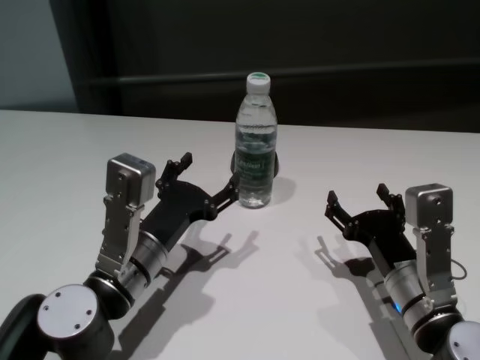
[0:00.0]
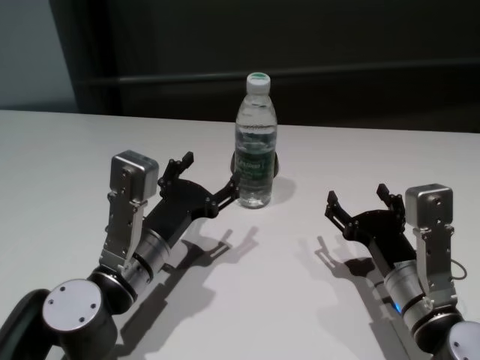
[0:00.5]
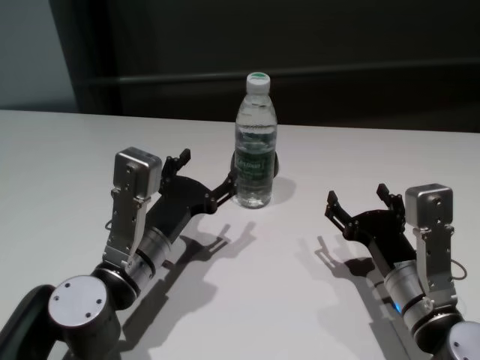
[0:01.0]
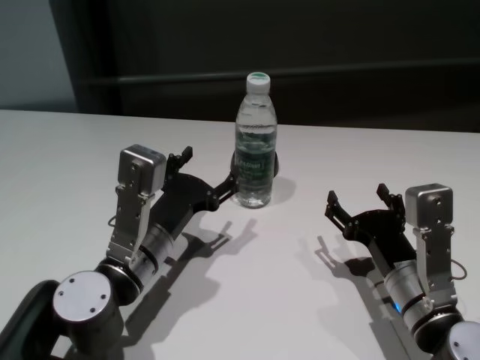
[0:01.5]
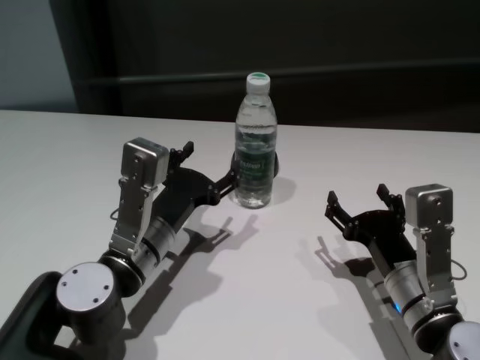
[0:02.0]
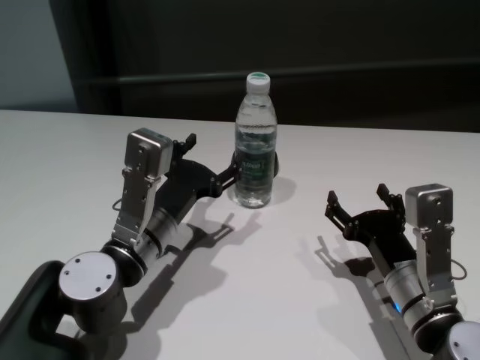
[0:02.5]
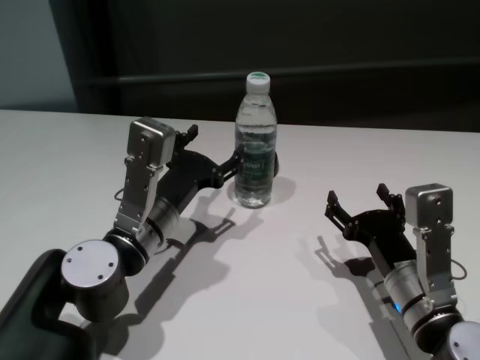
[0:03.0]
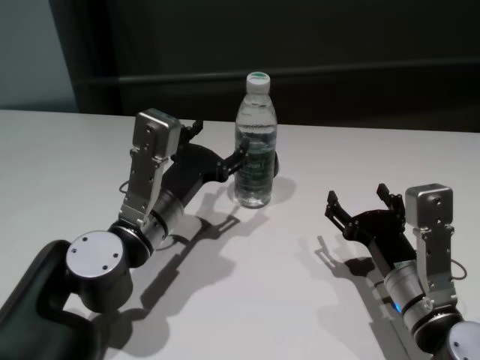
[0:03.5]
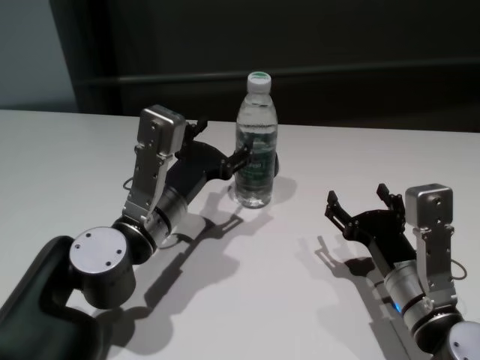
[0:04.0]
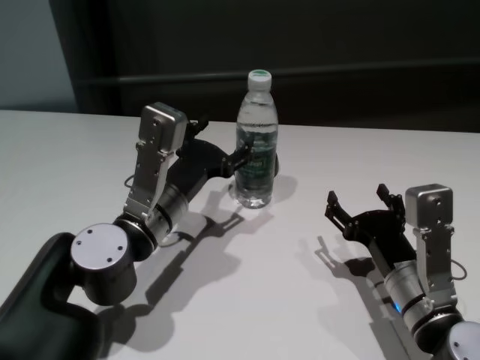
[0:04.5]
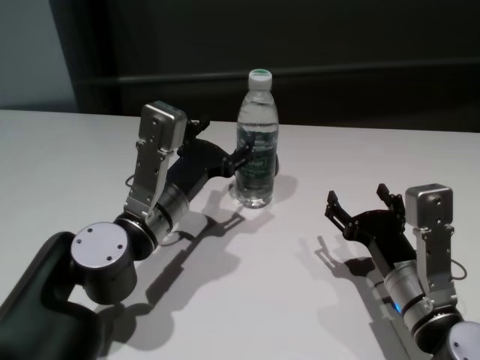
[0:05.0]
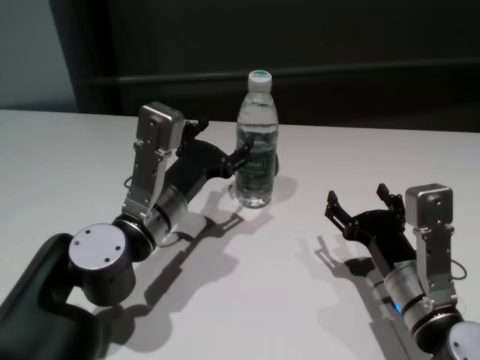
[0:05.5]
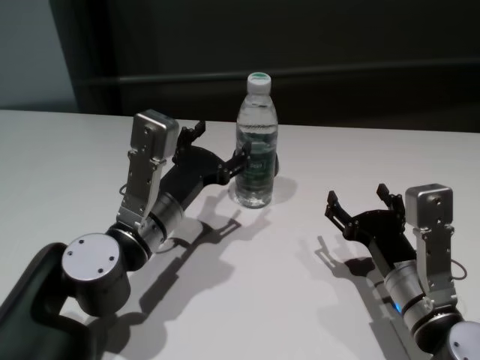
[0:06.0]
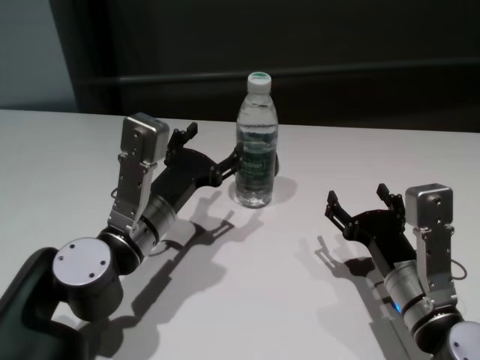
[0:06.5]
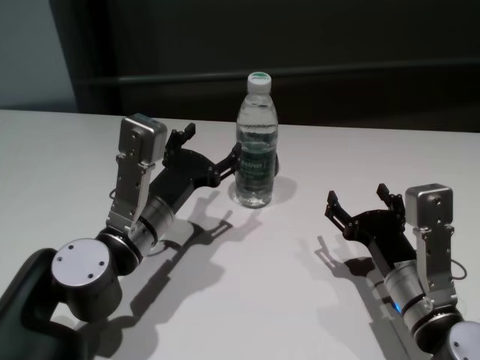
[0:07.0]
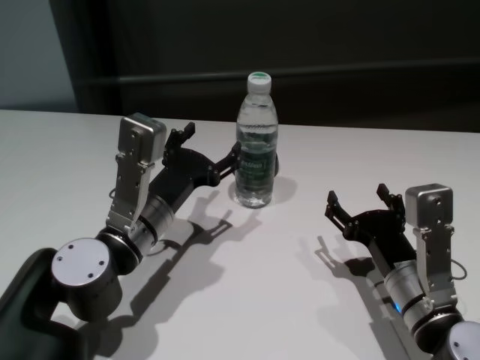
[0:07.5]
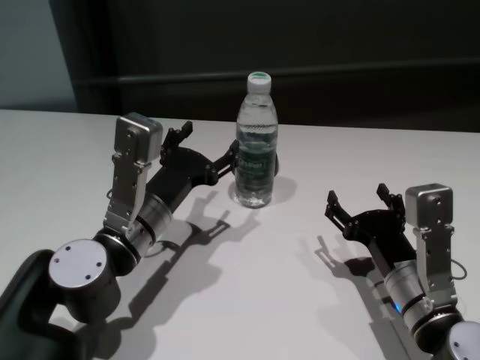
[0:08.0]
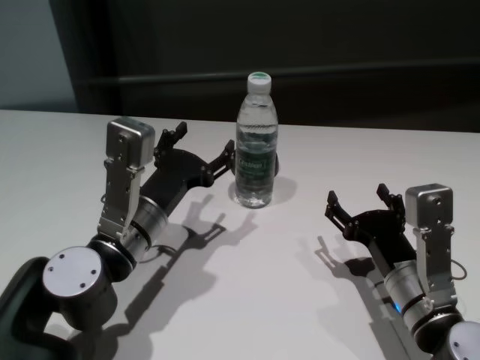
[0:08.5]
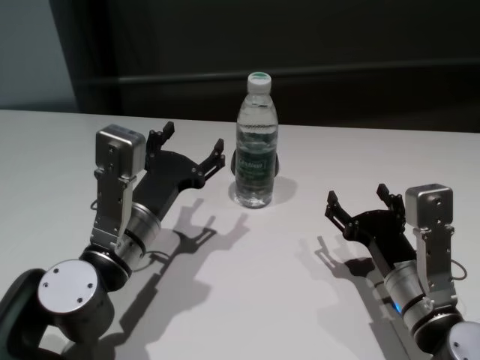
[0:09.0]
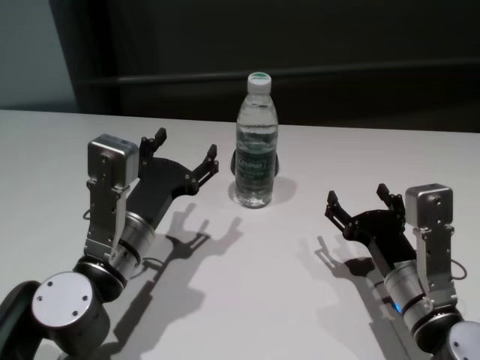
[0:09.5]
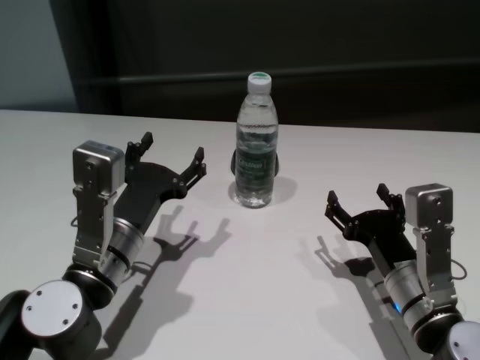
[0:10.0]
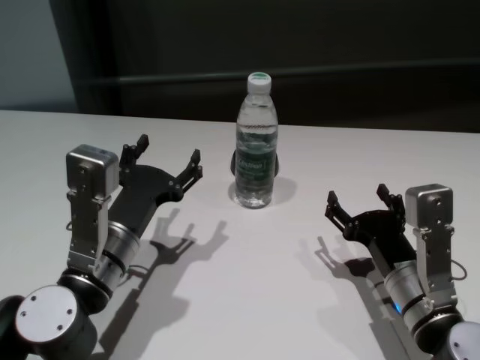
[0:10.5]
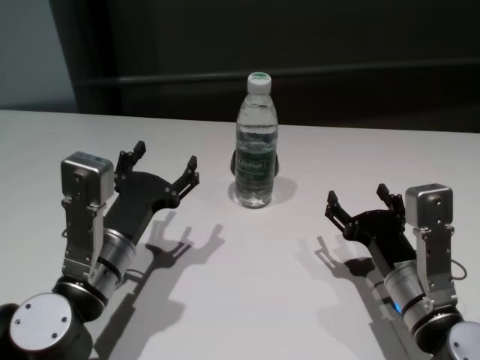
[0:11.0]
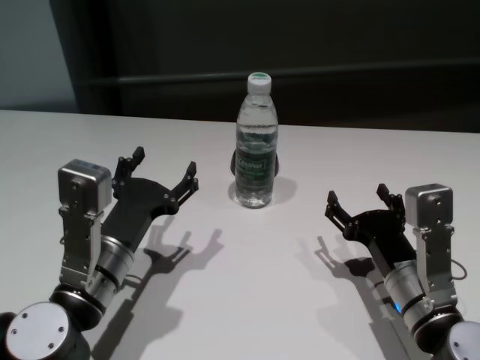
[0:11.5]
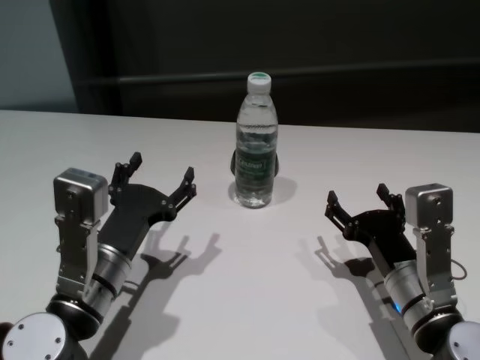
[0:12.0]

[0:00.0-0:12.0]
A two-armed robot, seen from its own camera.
Task of the whole recording: return to a safe position after touching an obstacle with your arm on the white table.
Step, 0:00.0 to 0:08.5: Touch the bottle with left gripper.

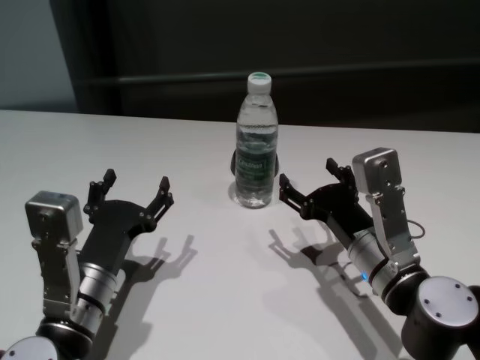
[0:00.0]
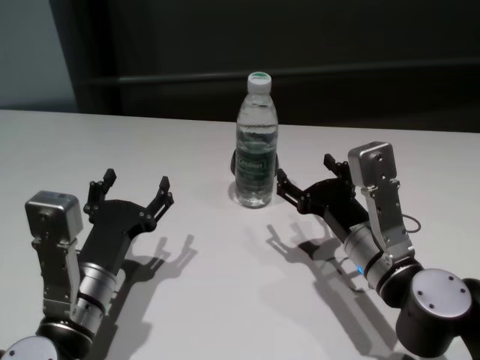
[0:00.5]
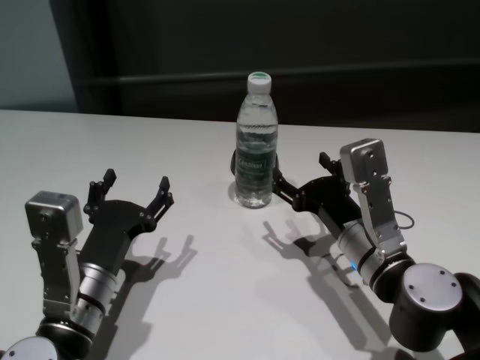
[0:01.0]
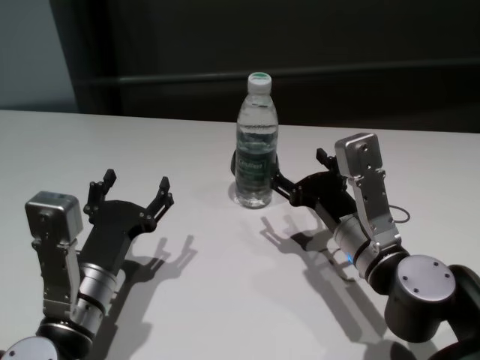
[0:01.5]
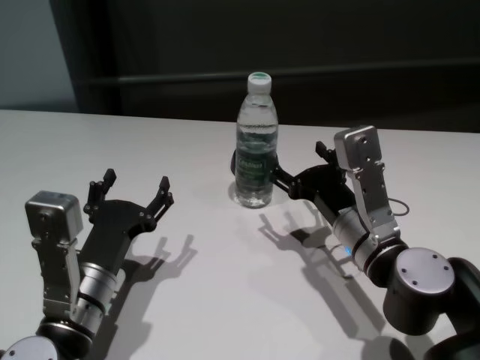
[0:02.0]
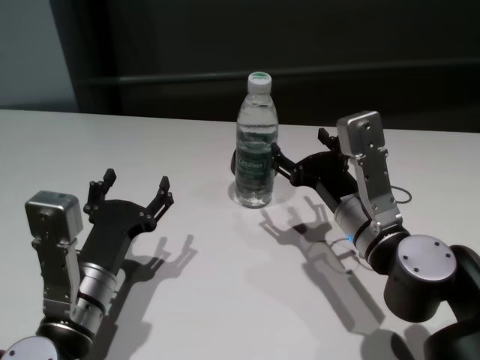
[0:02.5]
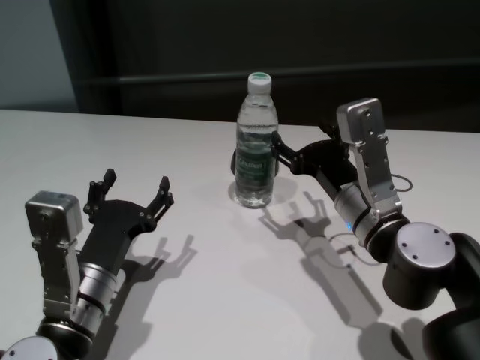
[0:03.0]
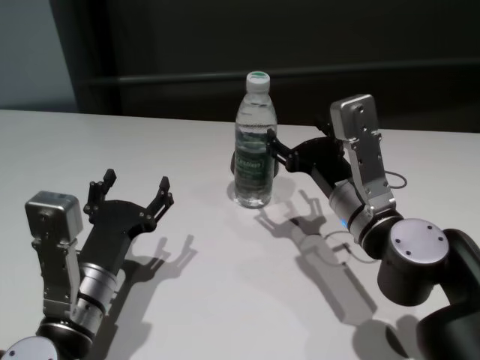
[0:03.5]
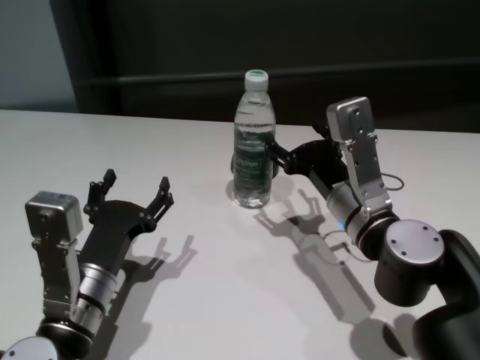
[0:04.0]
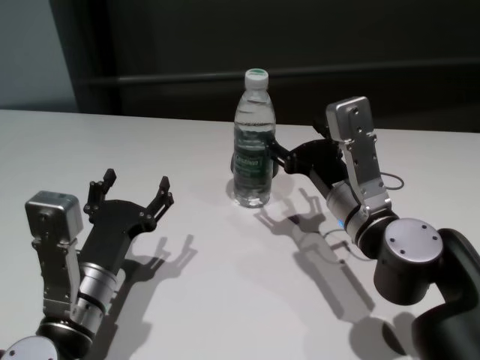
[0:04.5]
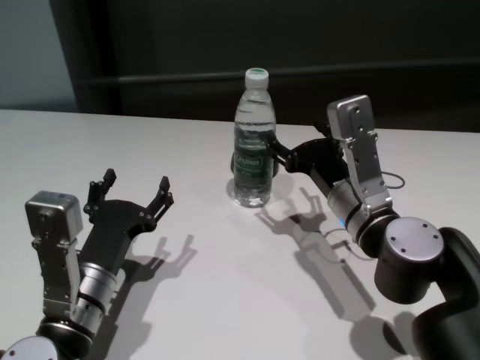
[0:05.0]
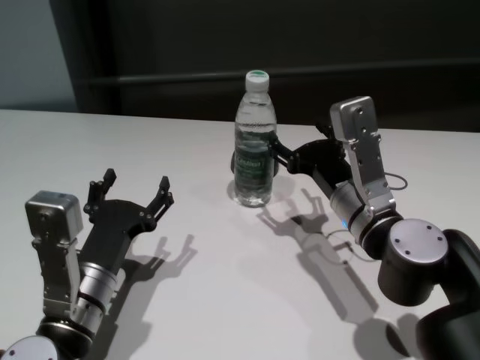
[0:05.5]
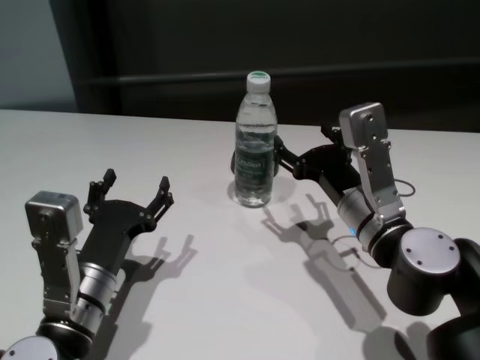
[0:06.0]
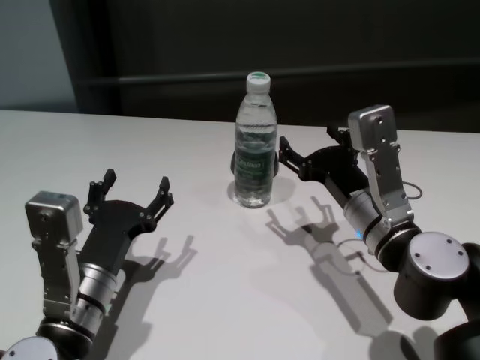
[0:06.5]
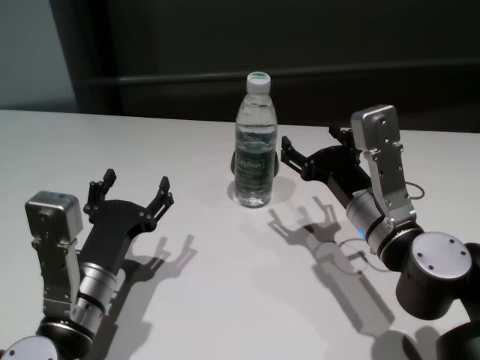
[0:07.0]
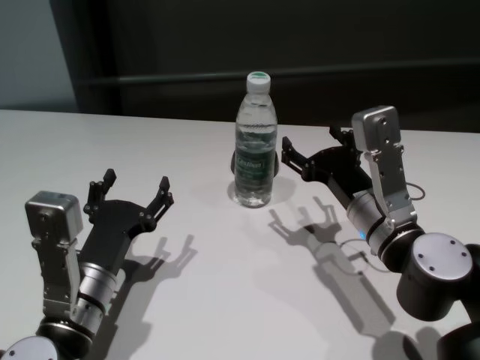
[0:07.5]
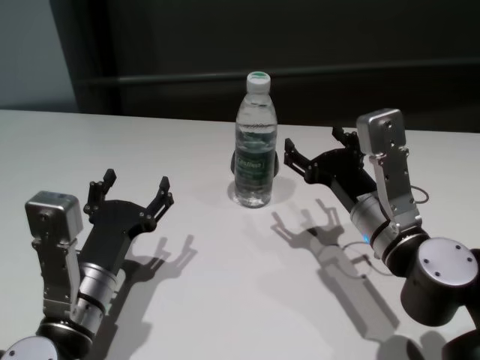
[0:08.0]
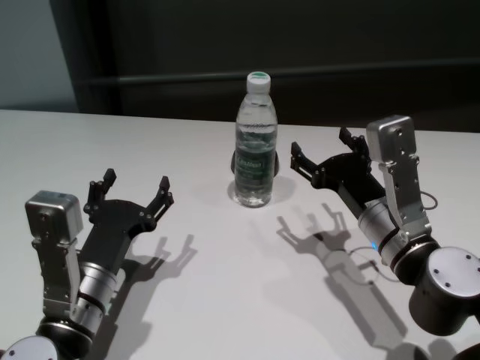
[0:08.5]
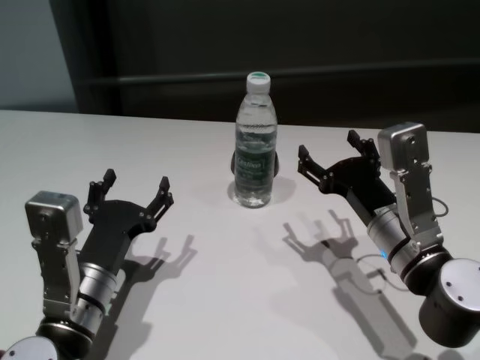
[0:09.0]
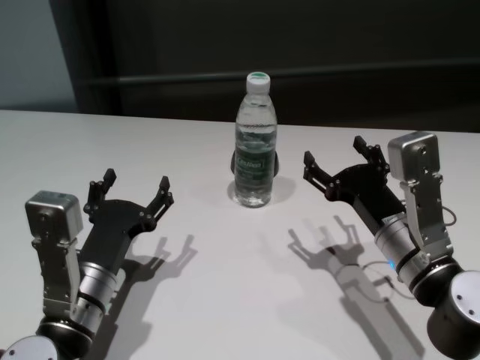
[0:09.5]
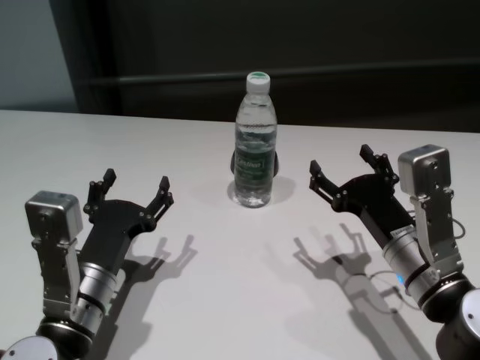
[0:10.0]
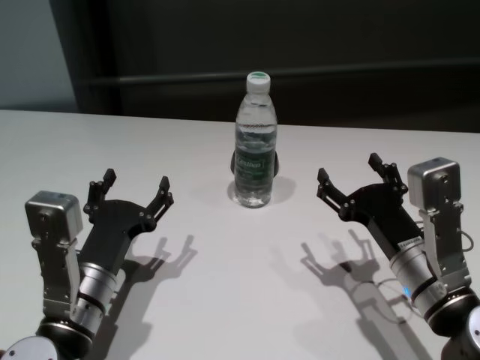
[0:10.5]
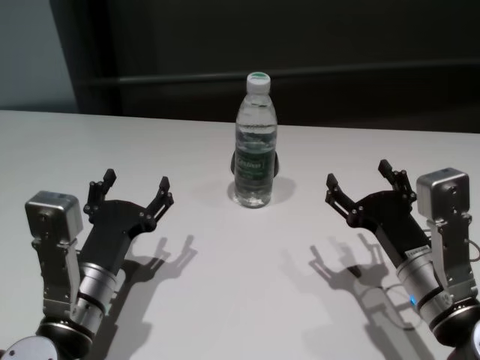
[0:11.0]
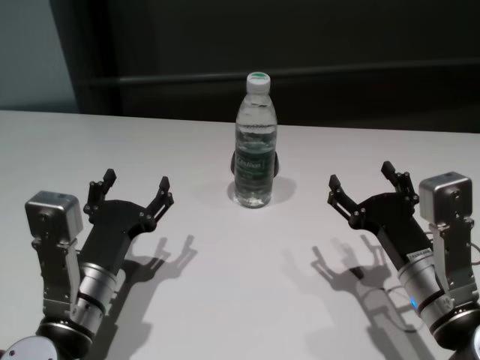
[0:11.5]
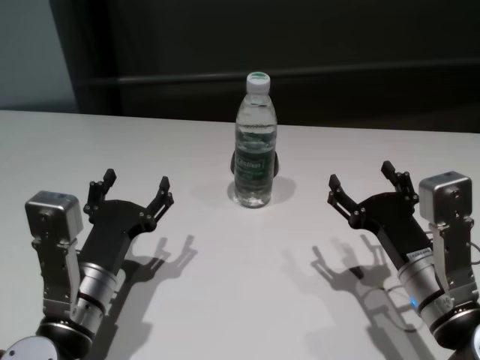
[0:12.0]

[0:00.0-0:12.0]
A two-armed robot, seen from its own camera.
Task of the whole recording: return to a safe position after touching an obstacle with your arm on the white table.
Step, 0:00.0 to 0:06.5: Touch the bottle with right gripper.
